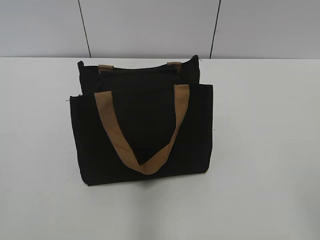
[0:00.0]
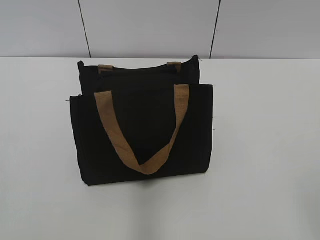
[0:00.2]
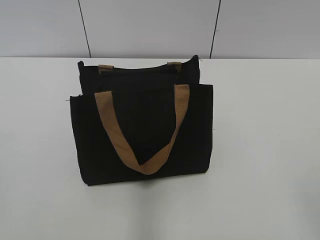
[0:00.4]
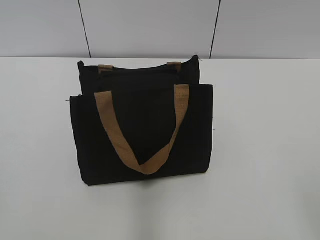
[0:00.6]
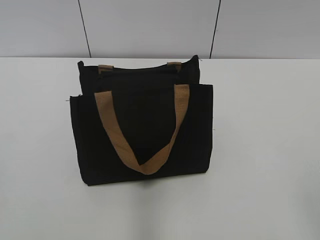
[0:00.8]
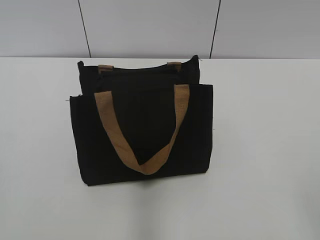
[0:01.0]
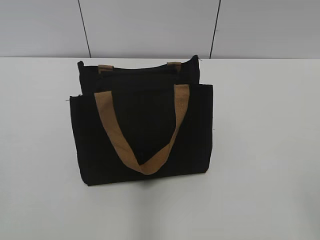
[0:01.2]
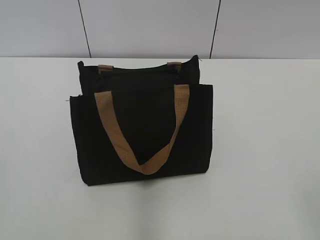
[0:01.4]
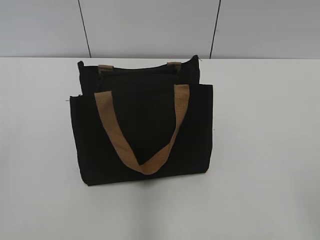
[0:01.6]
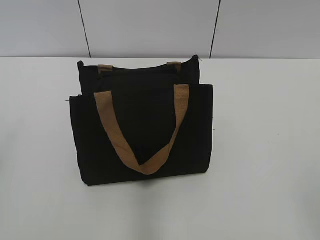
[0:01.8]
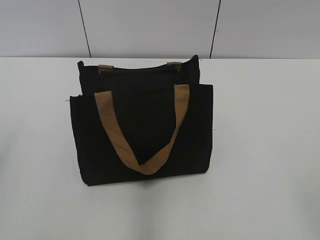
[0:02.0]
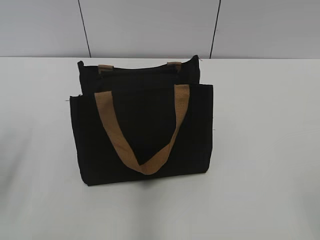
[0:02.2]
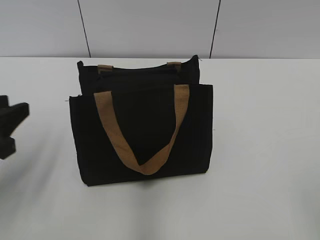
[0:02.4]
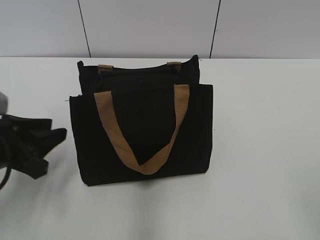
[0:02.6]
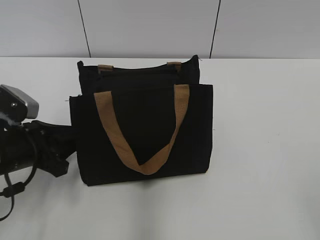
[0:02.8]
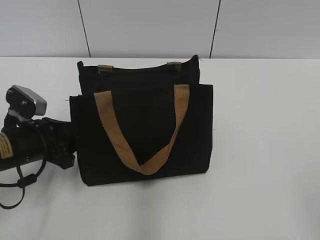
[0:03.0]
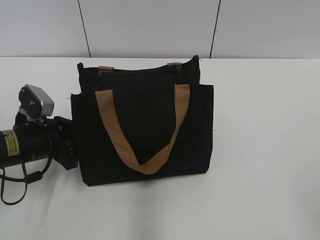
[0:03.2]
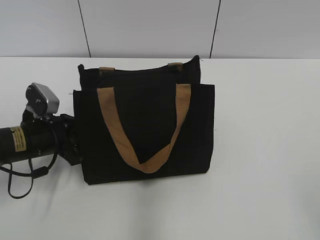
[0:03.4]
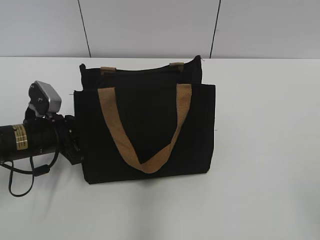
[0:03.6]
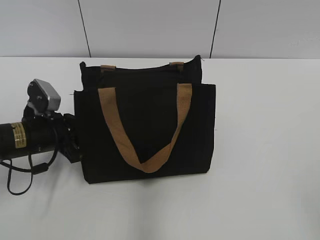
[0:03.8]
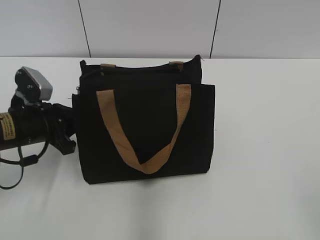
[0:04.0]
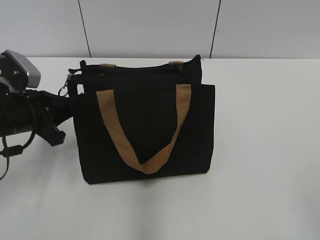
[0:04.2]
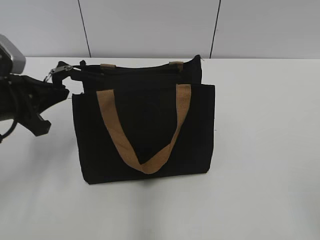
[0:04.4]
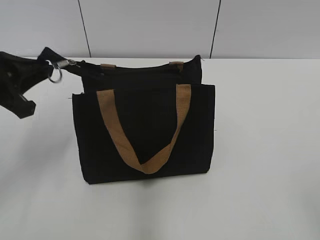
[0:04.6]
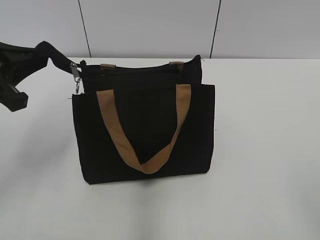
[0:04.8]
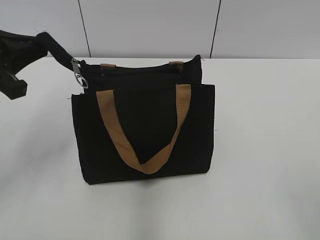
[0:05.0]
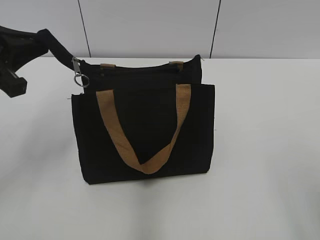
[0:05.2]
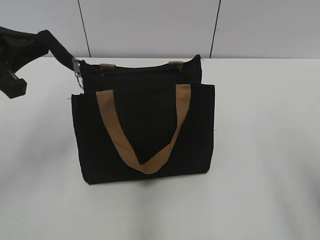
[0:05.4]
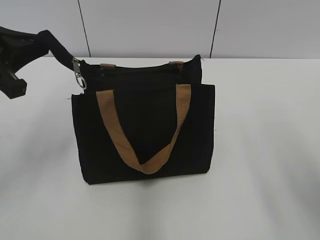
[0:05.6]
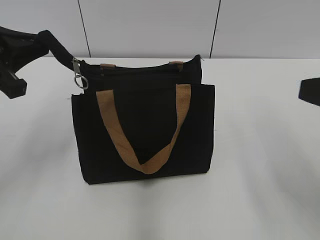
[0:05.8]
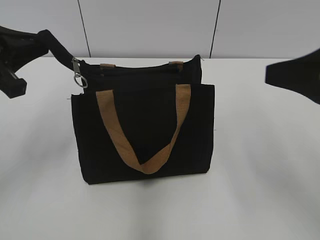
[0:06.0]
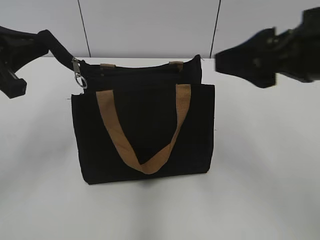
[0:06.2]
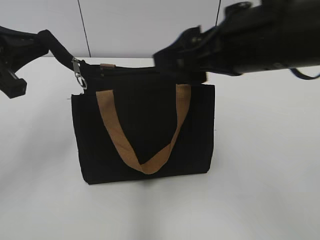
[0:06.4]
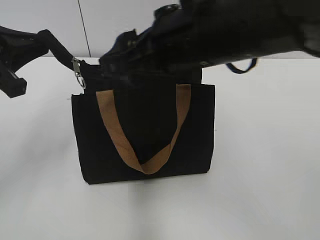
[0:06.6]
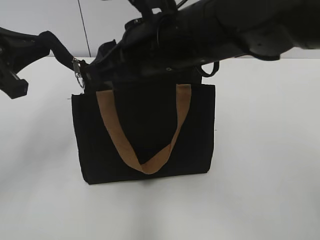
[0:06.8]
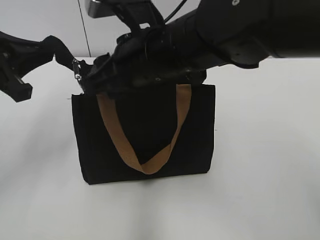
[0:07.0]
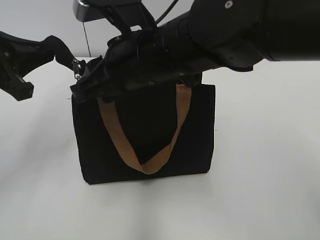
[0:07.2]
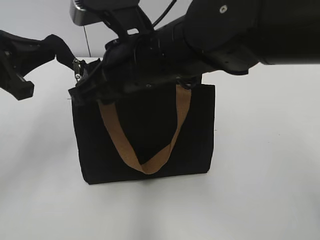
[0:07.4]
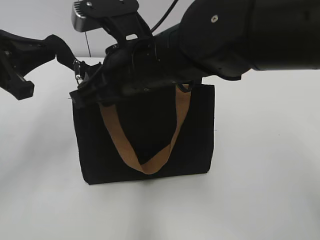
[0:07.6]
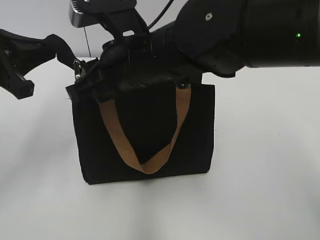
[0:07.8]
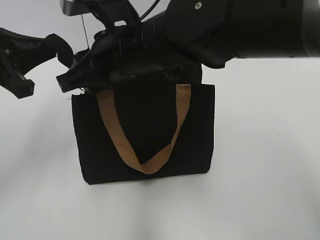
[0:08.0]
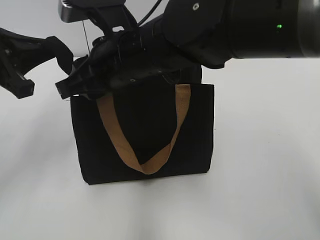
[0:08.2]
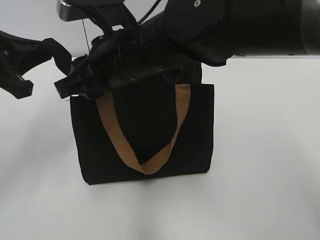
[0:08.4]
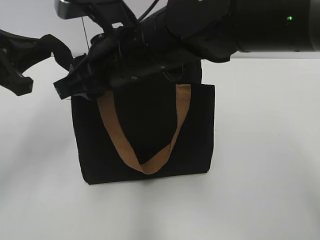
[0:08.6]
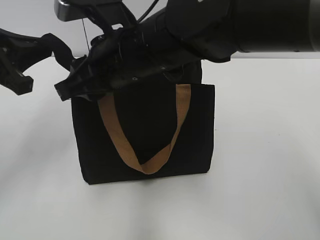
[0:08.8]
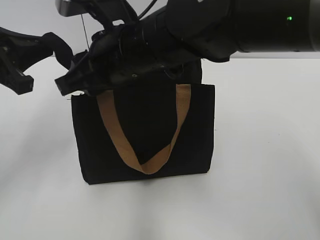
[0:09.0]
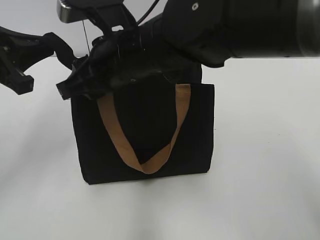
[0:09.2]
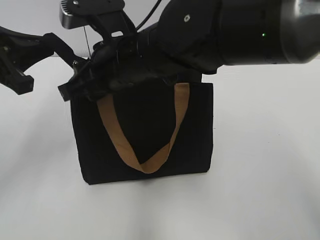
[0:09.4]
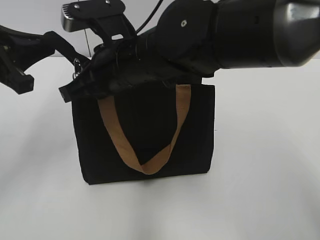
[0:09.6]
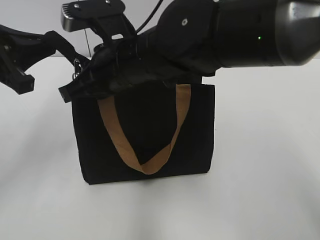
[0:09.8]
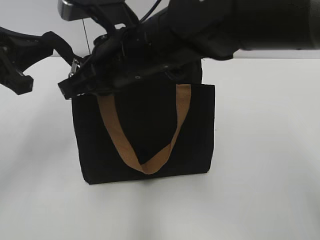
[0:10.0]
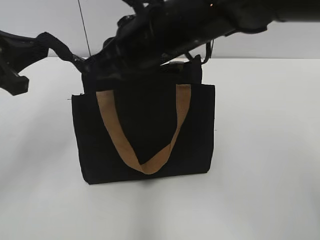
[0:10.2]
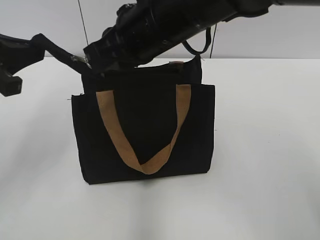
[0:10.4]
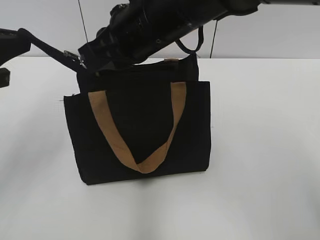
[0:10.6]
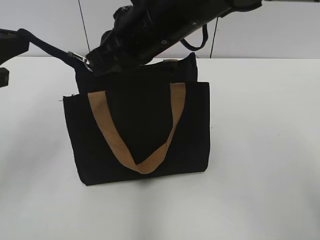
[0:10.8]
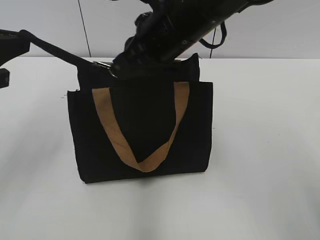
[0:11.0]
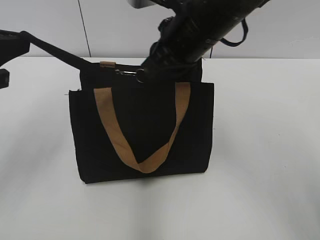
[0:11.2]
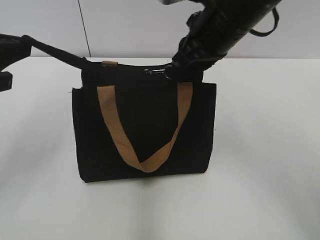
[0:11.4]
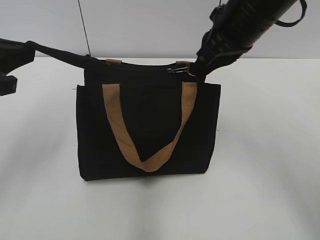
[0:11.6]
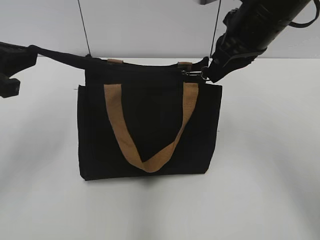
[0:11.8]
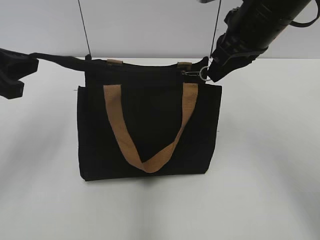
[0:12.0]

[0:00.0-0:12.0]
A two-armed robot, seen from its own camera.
Step, 0:00.0 to 0:12.0: Zip up the bag with your right hand.
0:01.6 to 0:03.0: The left gripper travels forward and downward by some 30 cm.
0:03.0 to 0:04.4: The left gripper heads upward, covering roughly 10 cm, and closes.
0:04.4 to 0:06.0: The left gripper travels upward by about 10 cm; the right gripper heads forward, covering some 20 cm.
0:06.0 to 0:07.6: The right gripper is displaced to the left by about 25 cm, and closes up.
0:07.6 to 0:09.0: The grippers stay close to where they were, moving slightly.
0:09.0 to 0:10.4: The right gripper closes.
0:10.4 to 0:12.0: The right gripper goes about 15 cm to the right.

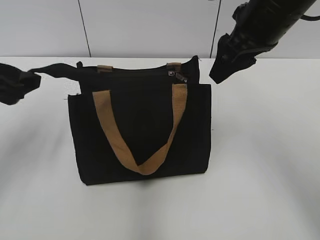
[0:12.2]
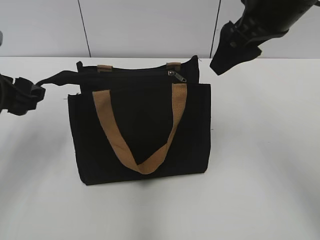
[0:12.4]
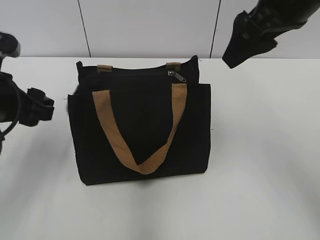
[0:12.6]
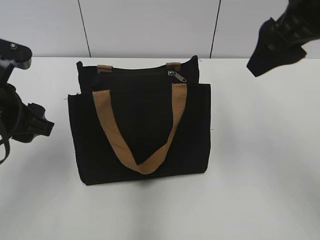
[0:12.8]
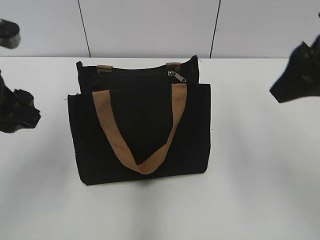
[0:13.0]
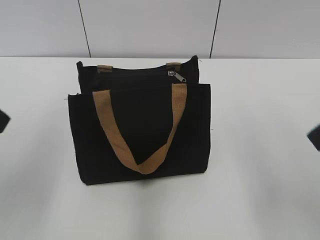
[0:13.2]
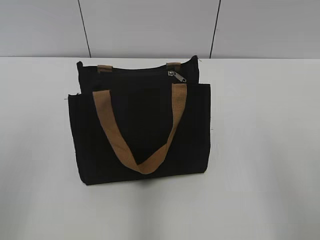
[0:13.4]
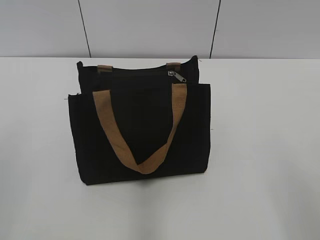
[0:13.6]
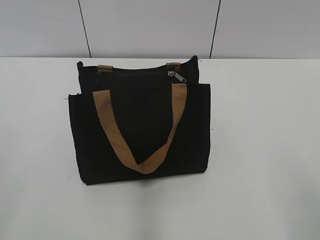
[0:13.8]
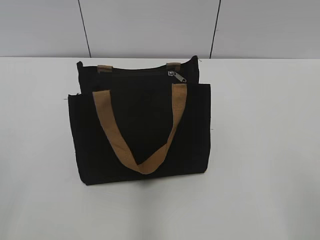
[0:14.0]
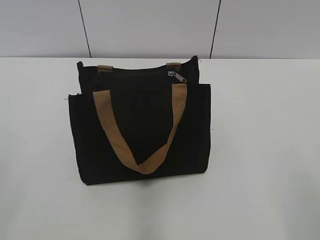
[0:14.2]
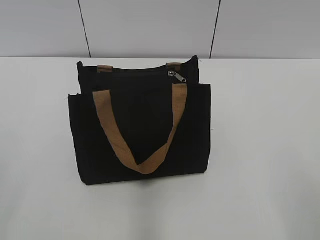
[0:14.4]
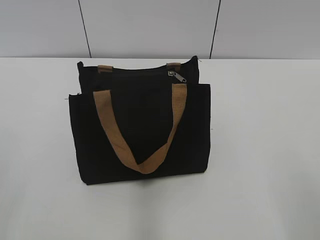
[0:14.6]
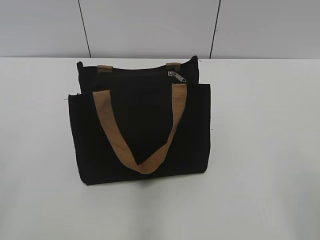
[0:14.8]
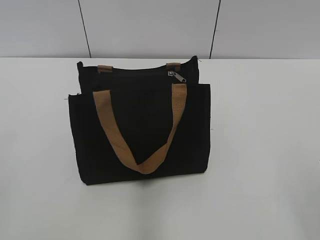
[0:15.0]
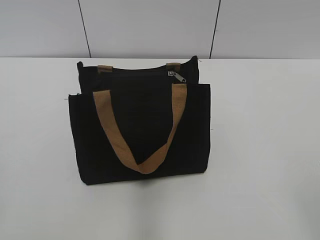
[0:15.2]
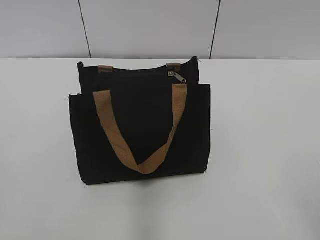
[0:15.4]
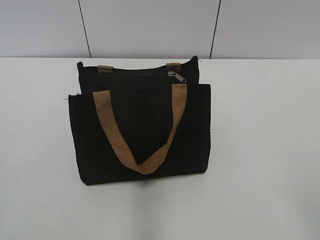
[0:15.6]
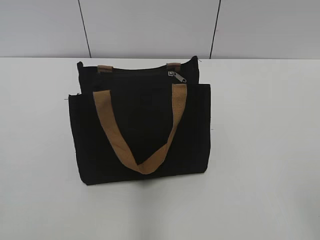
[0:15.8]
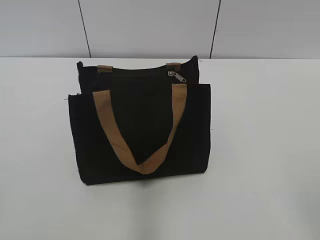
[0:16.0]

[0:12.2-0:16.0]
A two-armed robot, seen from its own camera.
Step, 0:12.2 to 0:12.6: Grab the zipper with your left hand.
0:12.2 to 0:13.4: The left gripper heads backward and upward, covering approximately 20 cm; the right gripper goes some 25 cm backward and to the right.
